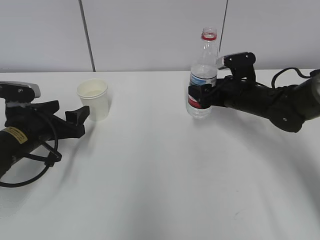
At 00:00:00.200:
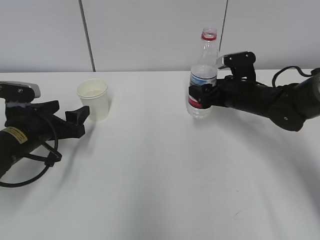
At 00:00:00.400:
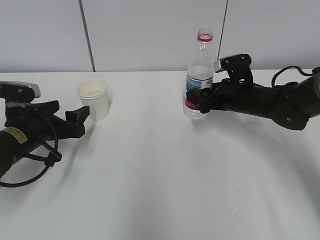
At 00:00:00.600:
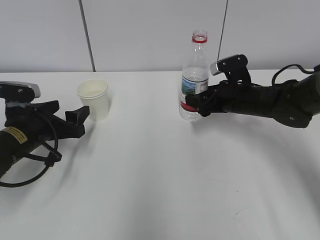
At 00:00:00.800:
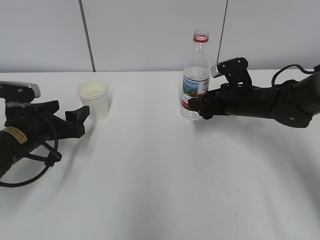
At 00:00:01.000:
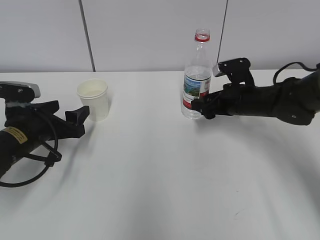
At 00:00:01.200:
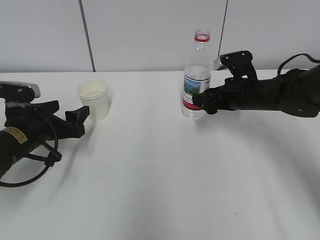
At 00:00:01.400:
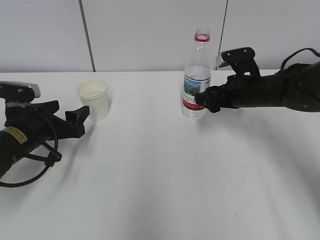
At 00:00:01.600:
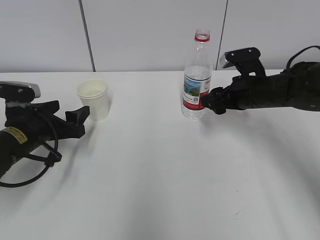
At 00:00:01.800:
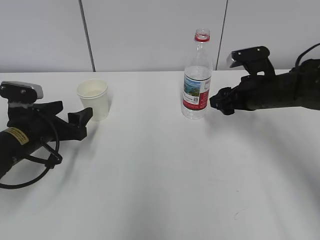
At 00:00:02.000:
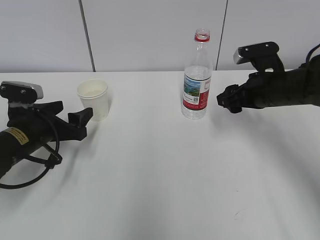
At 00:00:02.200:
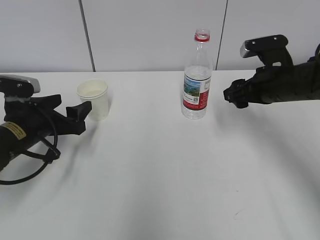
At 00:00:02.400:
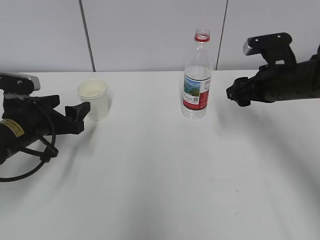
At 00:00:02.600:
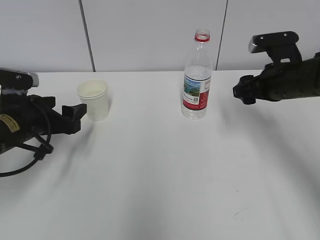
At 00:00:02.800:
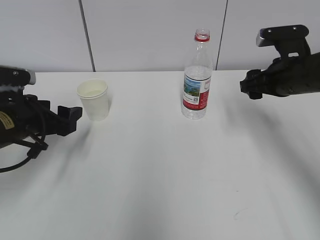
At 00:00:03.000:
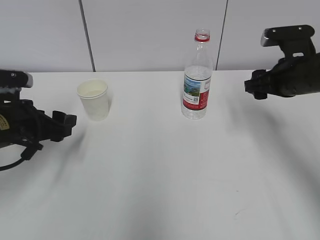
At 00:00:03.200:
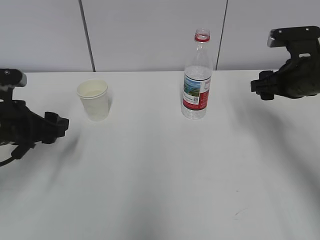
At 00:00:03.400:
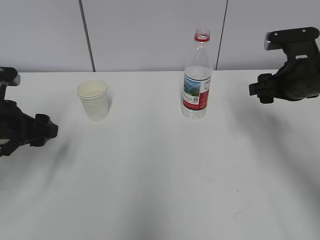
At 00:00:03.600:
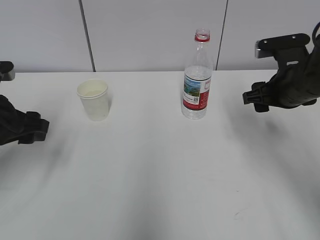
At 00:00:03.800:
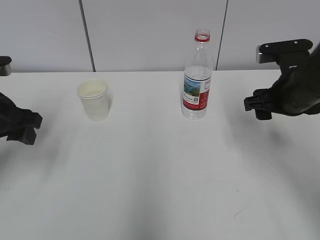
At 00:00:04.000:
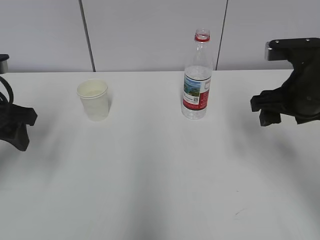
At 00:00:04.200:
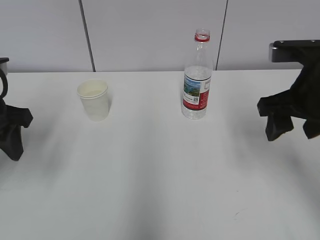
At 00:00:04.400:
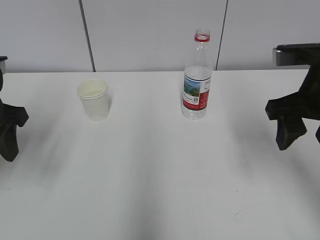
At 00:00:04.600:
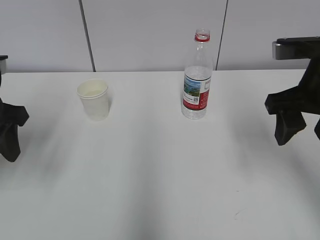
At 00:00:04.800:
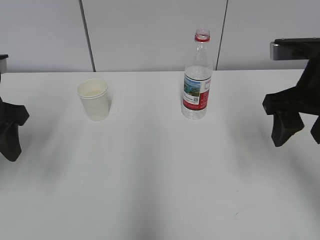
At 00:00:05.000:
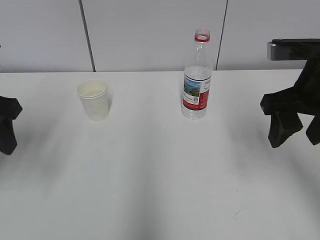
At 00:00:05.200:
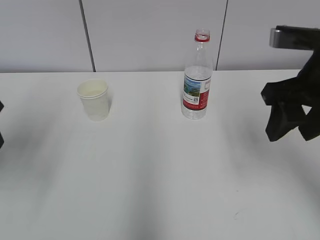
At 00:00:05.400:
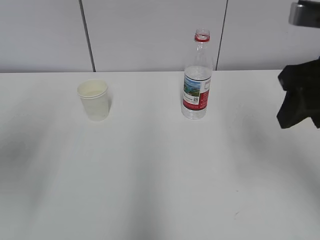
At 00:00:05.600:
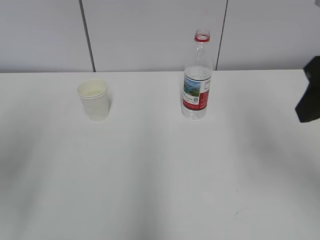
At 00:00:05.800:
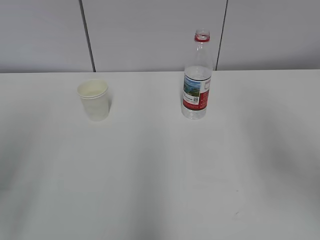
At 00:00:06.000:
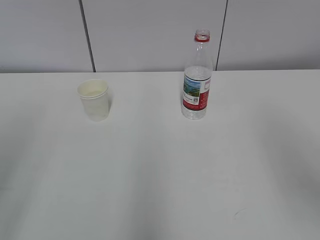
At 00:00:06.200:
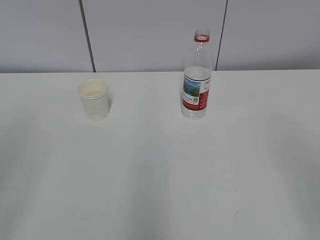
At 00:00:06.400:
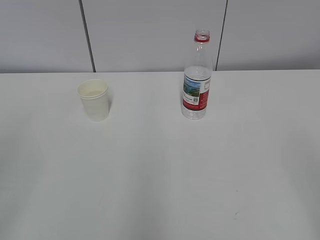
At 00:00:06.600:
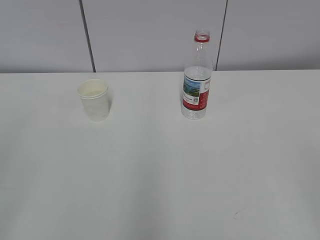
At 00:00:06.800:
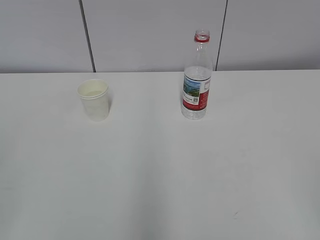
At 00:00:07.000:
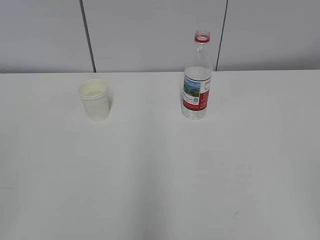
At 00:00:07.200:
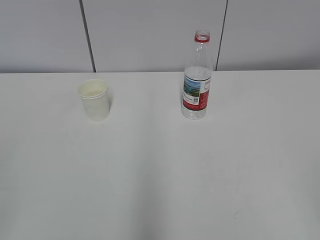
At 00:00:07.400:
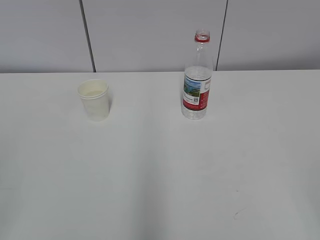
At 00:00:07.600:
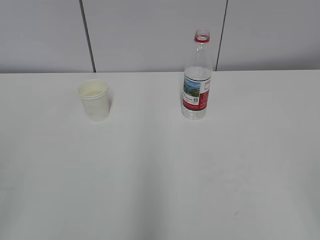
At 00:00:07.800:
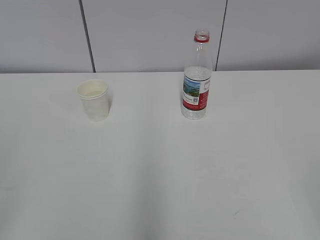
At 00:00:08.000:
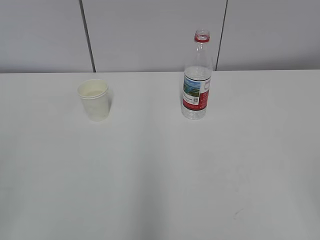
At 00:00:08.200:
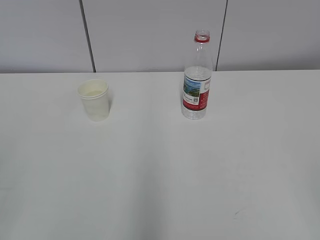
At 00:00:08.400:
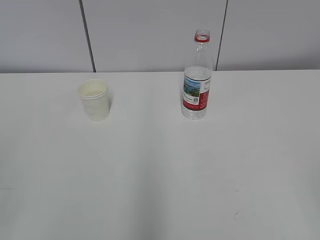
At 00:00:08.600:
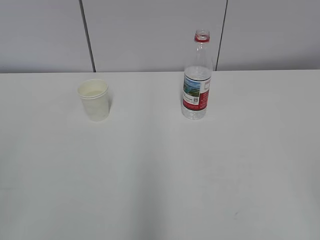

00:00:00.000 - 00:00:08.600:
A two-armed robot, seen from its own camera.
00:00:00.000 - 00:00:01.400: The right gripper closes its fingers.
00:00:01.400 - 00:00:02.800: The right gripper shifts roughly 5 cm upward.
00:00:02.800 - 00:00:04.400: The right gripper goes about 10 cm backward and upward; the left gripper travels upward by approximately 10 cm.
00:00:04.400 - 00:00:05.800: Both grippers travel together backward and upward, some 15 cm.
00:00:05.800 - 00:00:07.200: Both grippers move backward, about 20 cm. The left gripper closes up.
